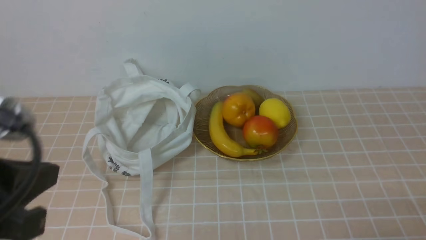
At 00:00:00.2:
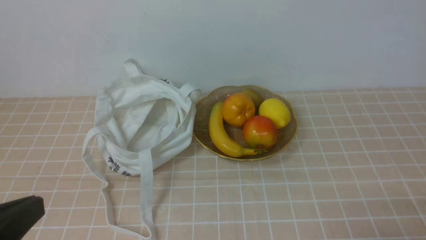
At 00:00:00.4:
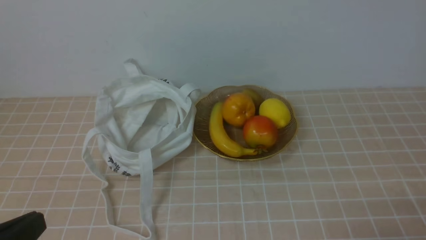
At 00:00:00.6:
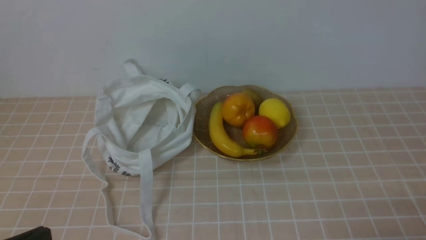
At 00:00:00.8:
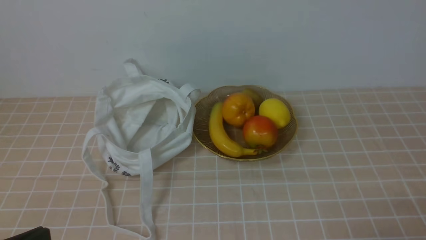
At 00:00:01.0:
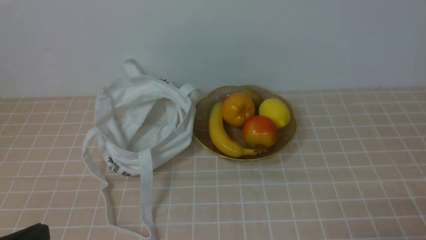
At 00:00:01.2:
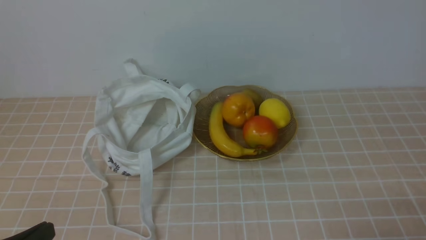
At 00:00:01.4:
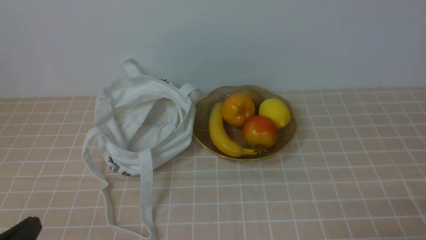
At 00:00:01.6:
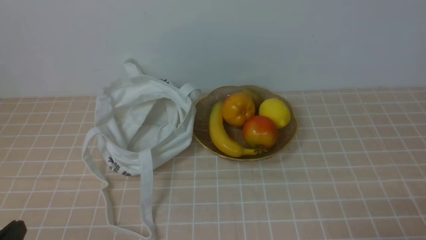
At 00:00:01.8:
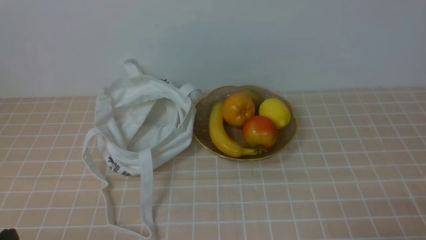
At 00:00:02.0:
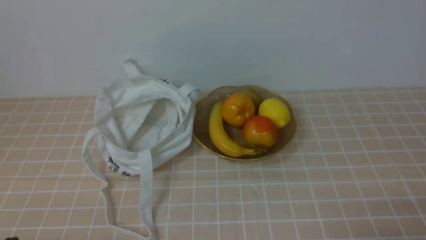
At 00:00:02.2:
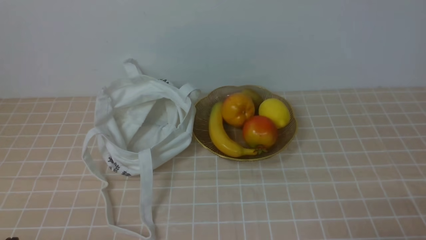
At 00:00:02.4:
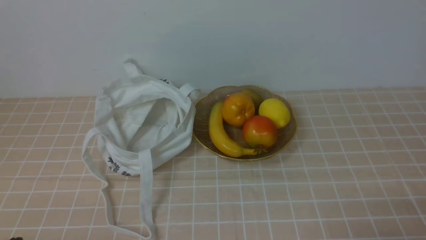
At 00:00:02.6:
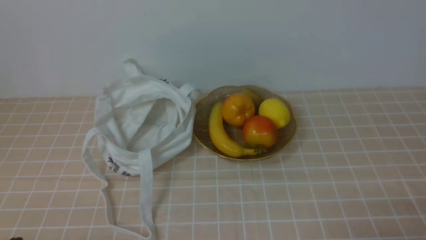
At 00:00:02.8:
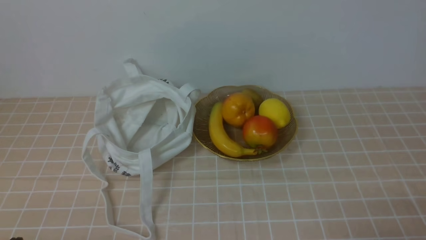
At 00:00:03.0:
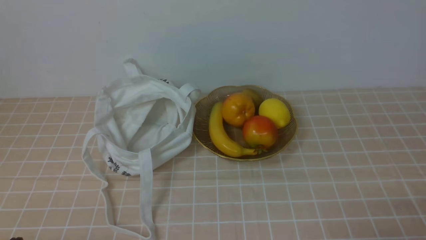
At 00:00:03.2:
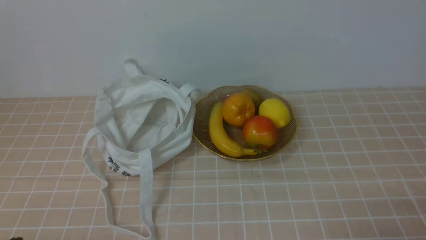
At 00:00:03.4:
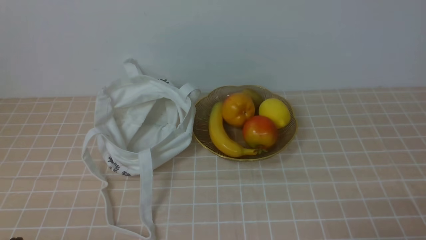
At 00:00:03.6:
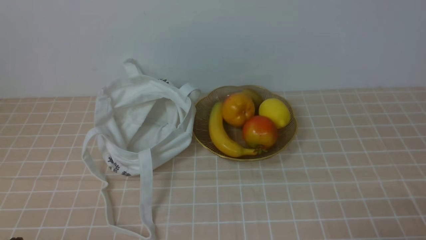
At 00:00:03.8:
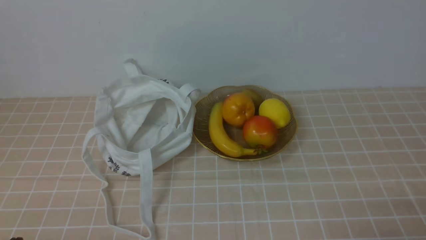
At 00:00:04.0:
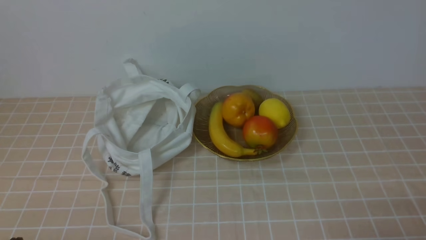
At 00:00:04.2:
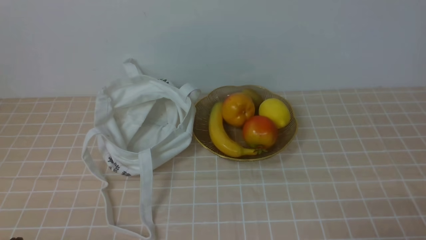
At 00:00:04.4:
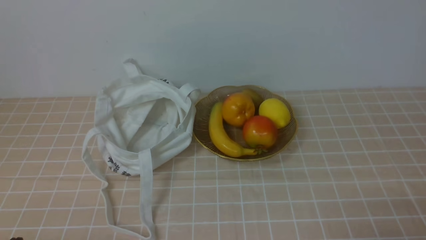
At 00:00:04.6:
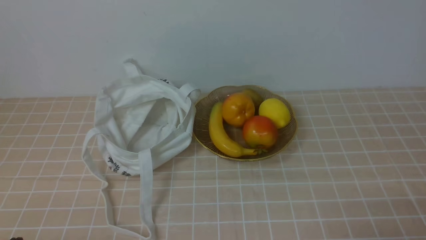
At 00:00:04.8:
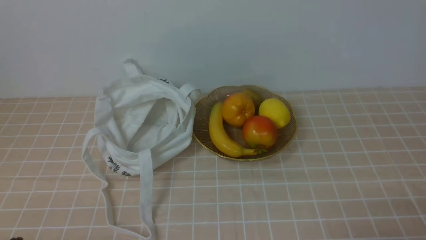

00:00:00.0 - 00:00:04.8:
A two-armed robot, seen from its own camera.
00:00:00.0 - 00:00:01.6: The left gripper moves downward, approximately 15 cm.
00:00:03.2 - 00:00:04.8: Neither gripper changes place.
